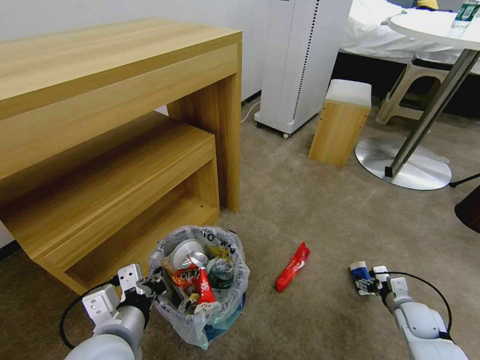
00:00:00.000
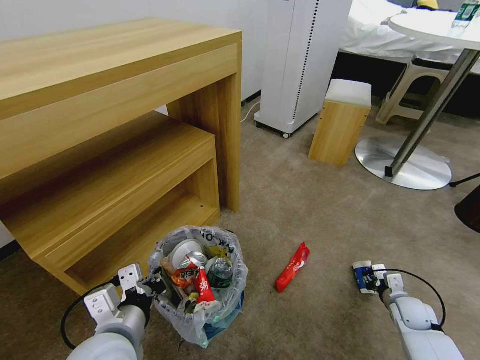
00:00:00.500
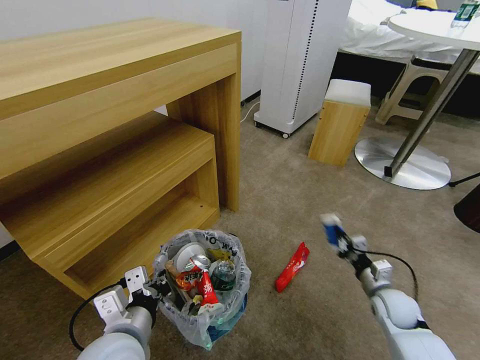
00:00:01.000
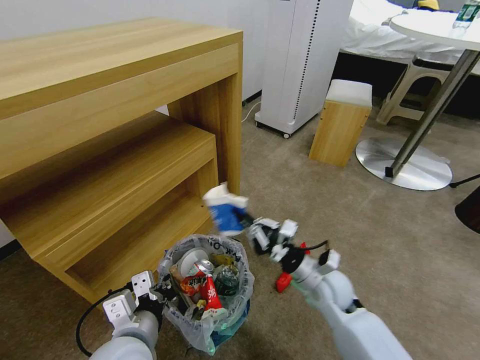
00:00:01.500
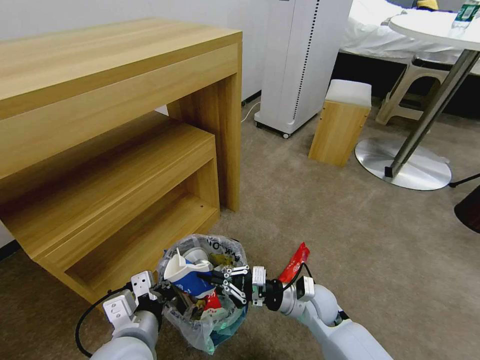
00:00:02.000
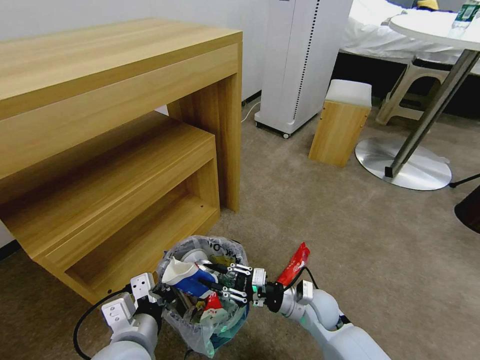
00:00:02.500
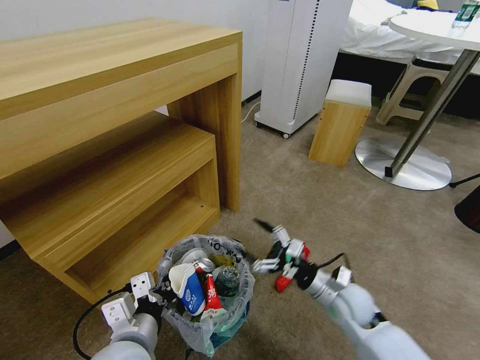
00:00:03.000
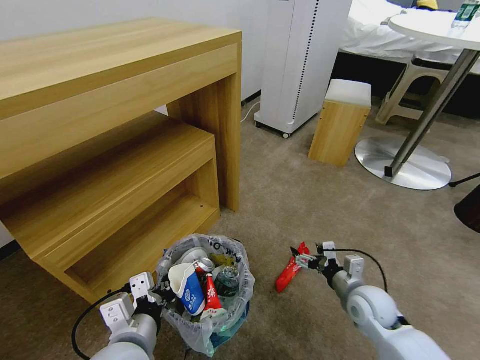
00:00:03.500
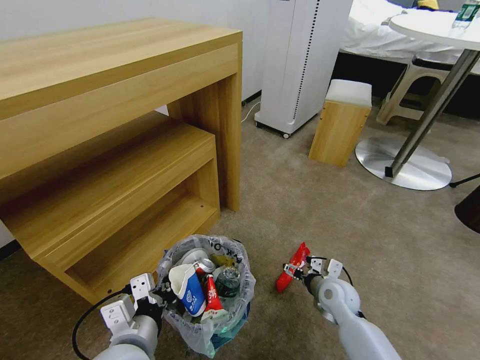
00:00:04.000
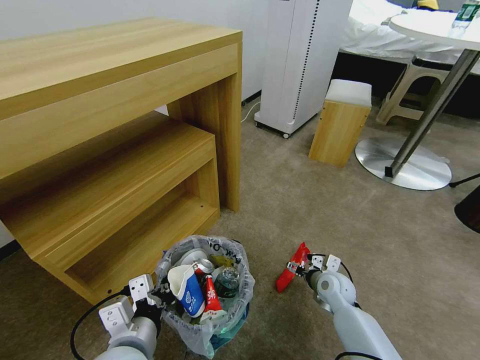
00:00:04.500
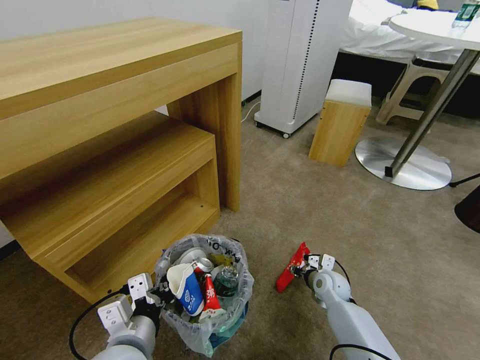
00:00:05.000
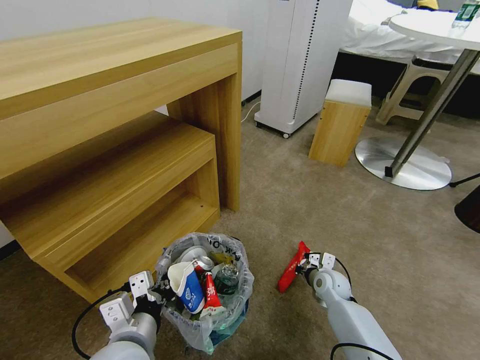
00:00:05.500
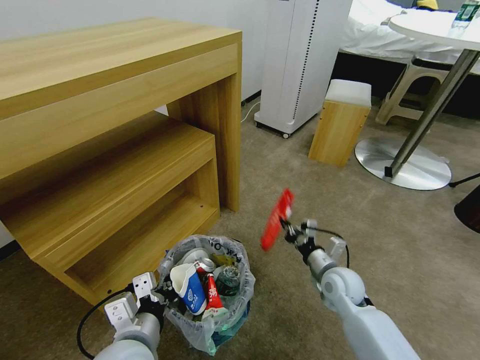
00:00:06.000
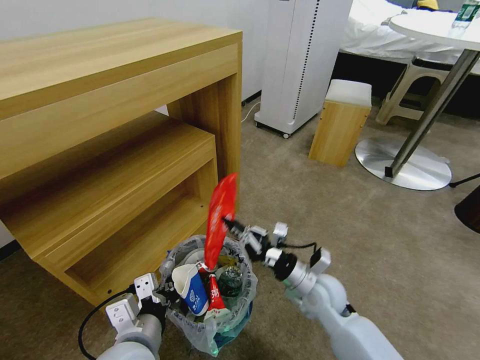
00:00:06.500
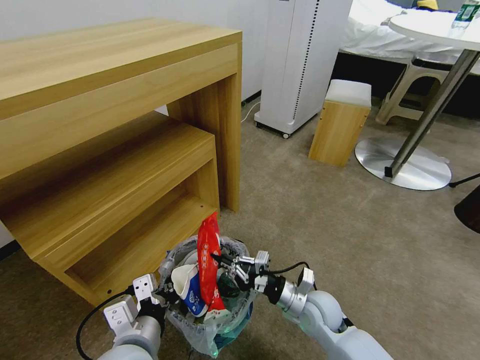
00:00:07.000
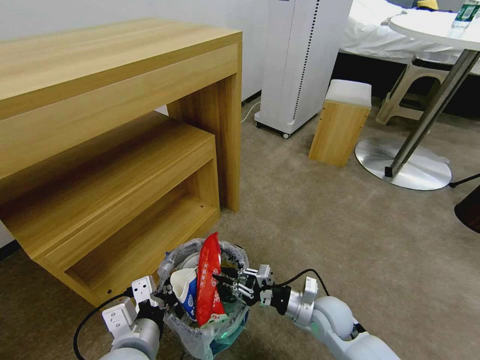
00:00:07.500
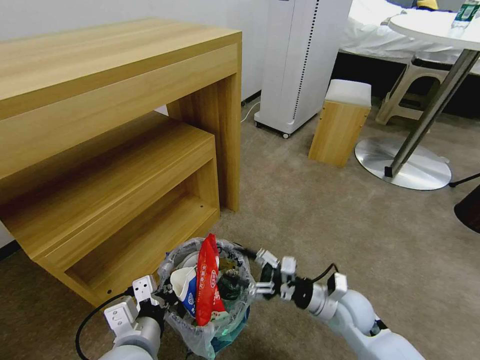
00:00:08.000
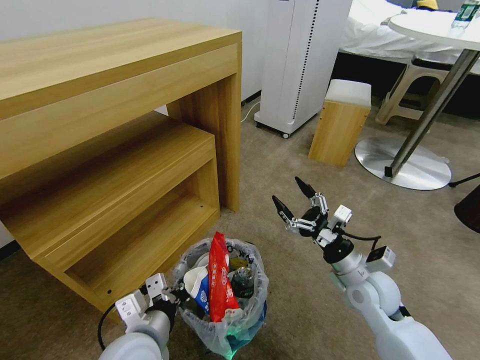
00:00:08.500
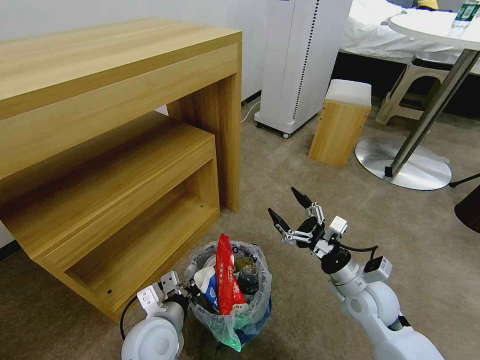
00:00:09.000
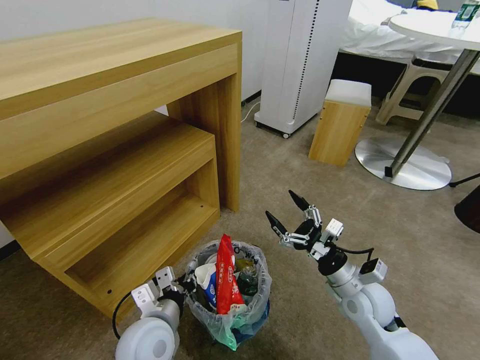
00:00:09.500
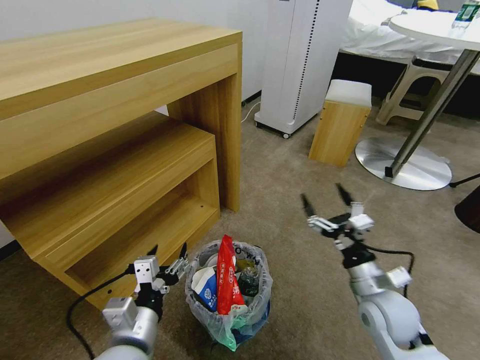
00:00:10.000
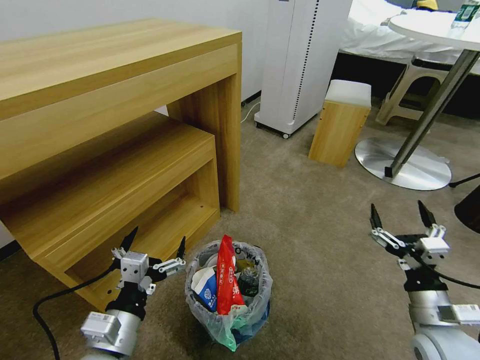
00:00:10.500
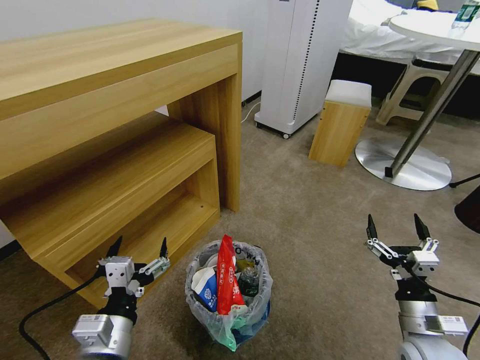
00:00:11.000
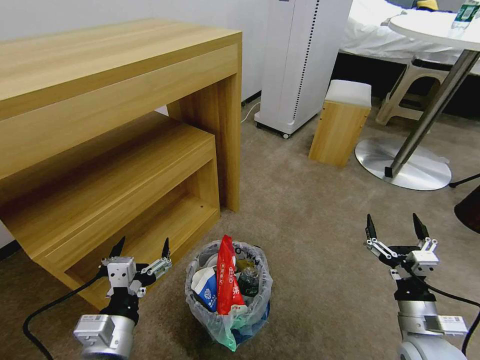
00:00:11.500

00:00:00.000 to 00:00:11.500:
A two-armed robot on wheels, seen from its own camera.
Task of the whole recording: Pick up the trash bin and place the garbage on the floor into it.
00:00:00.000 to 00:00:02.000: The right gripper goes roughly 30 cm to the left, and closes.
00:00:02.000 to 00:00:04.000: The right gripper shifts approximately 10 cm to the right, and opens.
00:00:04.000 to 00:00:06.000: The right gripper closes up.
00:00:06.000 to 00:00:07.500: The right gripper is displaced backward by approximately 5 cm.
00:00:07.500 to 00:00:09.500: The left gripper goes approximately 10 cm forward and downward. The right gripper is displaced upward and to the right by about 10 cm, and opens up.
00:00:09.500 to 00:00:11.500: The left gripper moves backward, roughly 5 cm, and opens its fingers. Meanwhile the right gripper goes approximately 15 cm backward and to the right.
